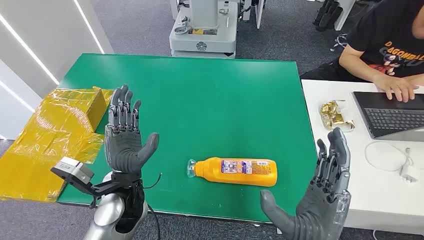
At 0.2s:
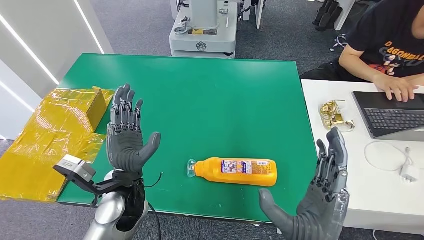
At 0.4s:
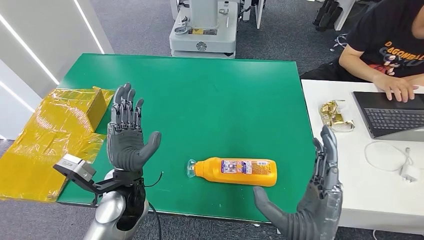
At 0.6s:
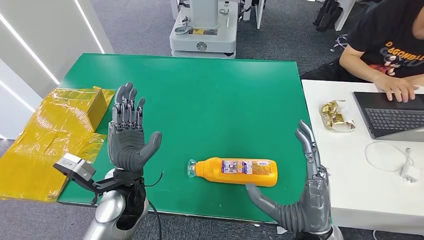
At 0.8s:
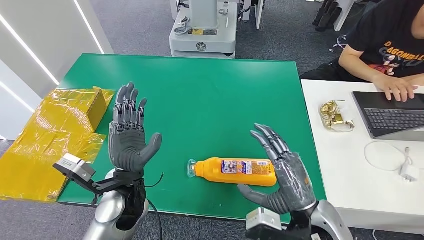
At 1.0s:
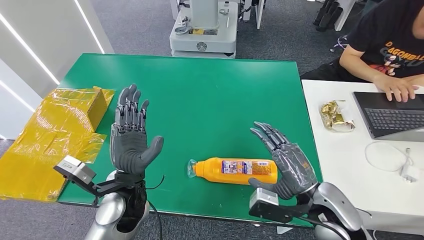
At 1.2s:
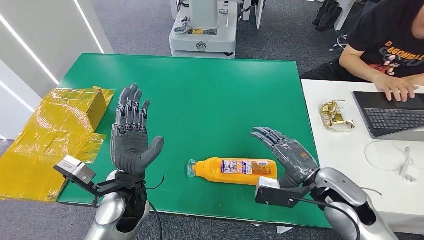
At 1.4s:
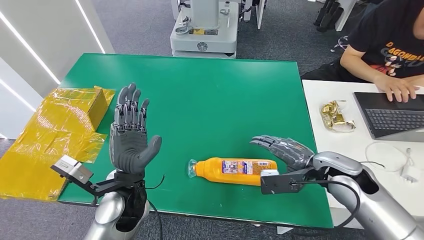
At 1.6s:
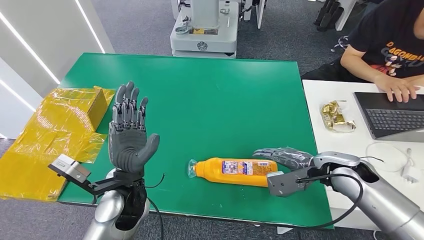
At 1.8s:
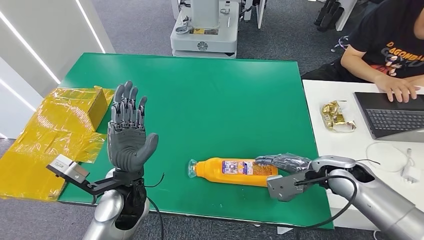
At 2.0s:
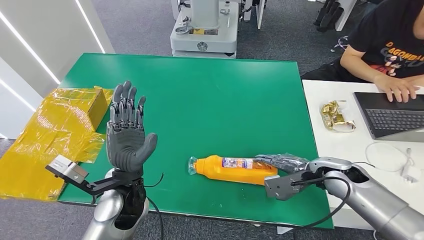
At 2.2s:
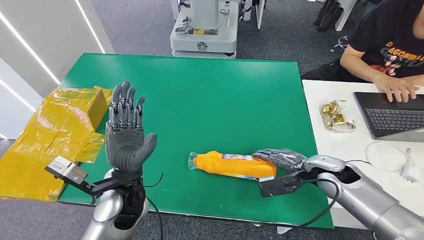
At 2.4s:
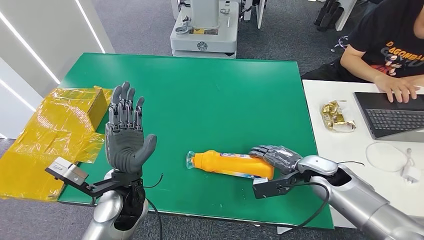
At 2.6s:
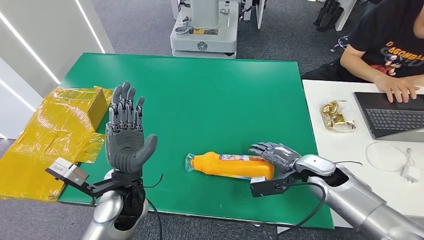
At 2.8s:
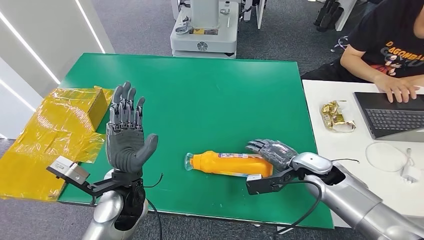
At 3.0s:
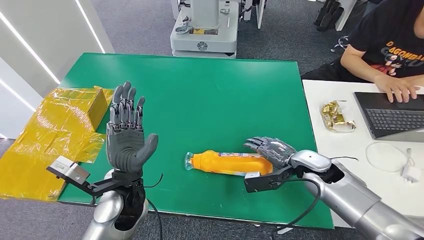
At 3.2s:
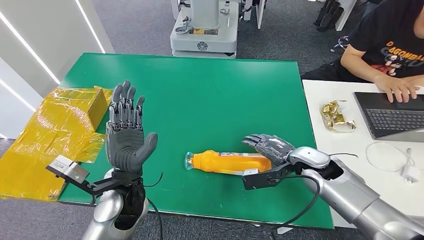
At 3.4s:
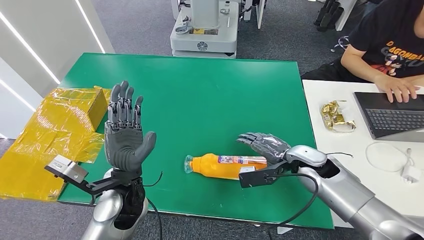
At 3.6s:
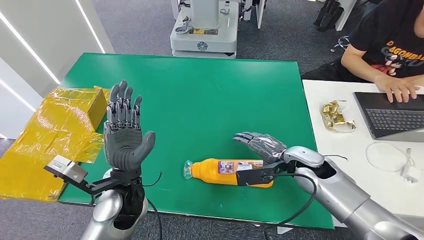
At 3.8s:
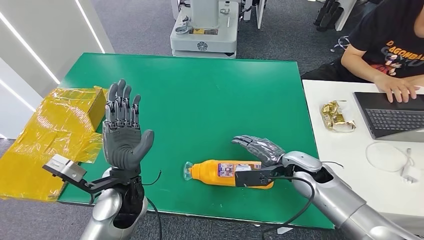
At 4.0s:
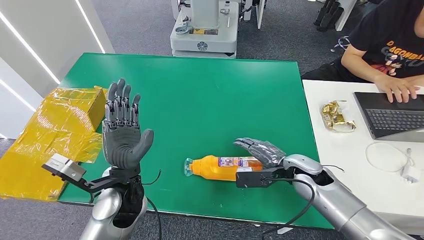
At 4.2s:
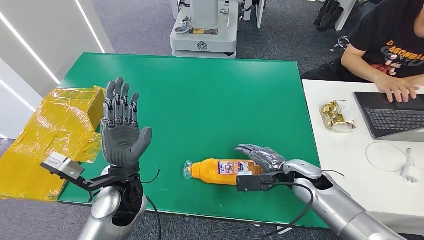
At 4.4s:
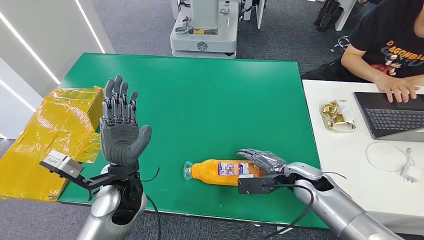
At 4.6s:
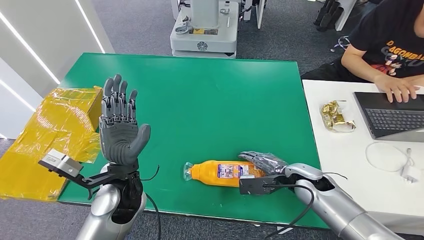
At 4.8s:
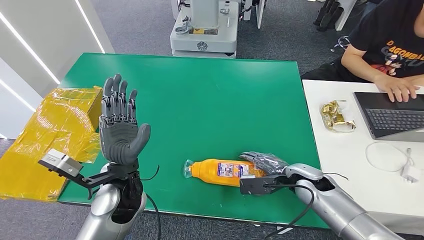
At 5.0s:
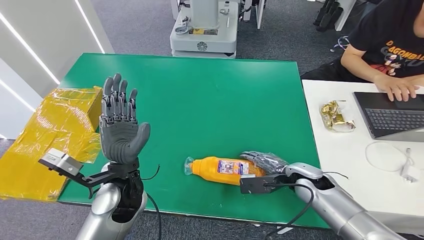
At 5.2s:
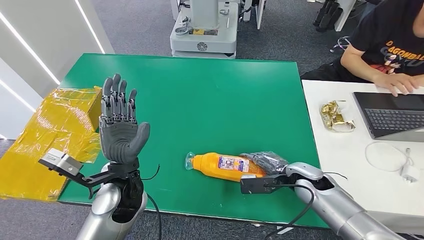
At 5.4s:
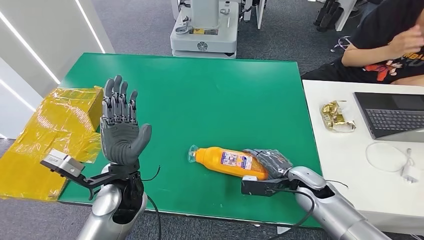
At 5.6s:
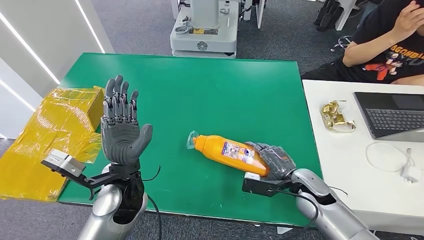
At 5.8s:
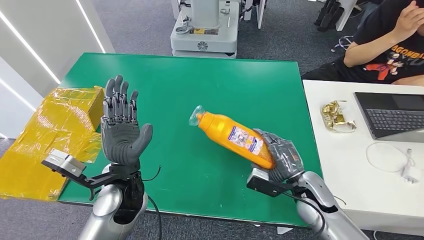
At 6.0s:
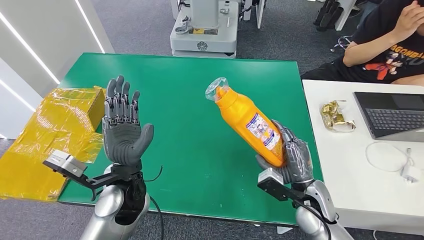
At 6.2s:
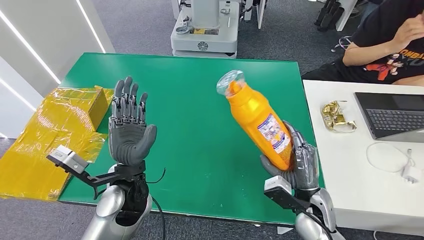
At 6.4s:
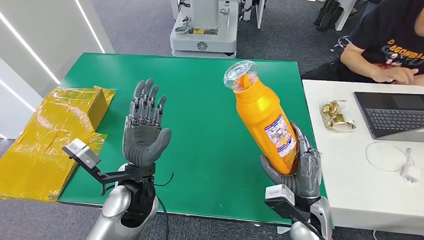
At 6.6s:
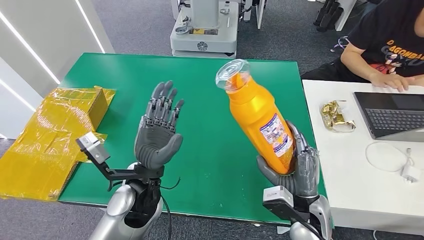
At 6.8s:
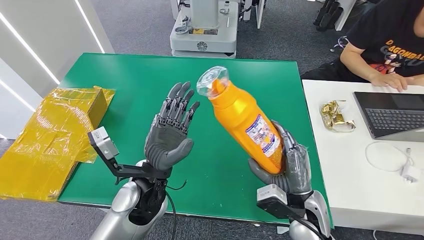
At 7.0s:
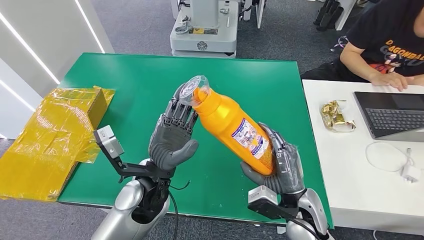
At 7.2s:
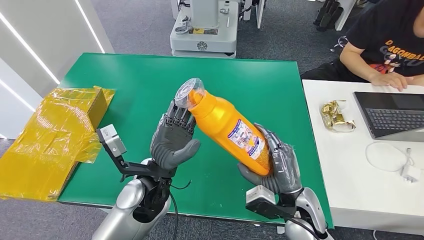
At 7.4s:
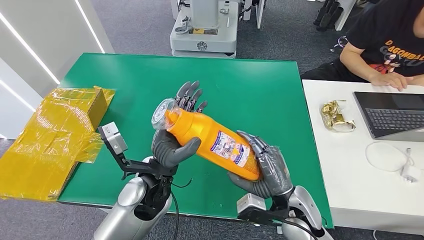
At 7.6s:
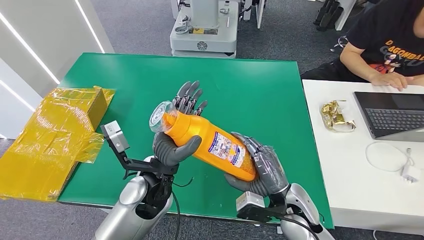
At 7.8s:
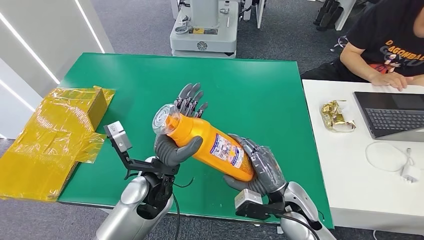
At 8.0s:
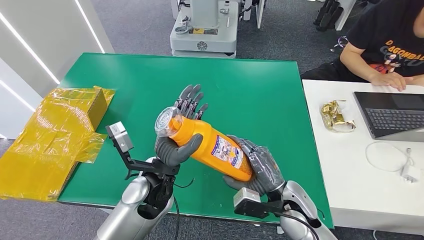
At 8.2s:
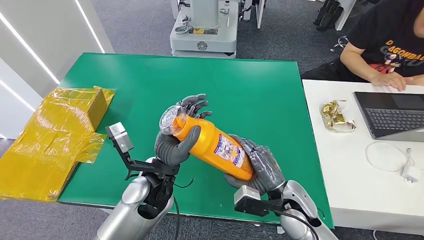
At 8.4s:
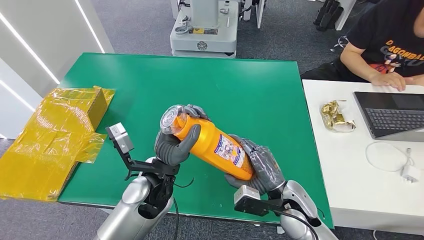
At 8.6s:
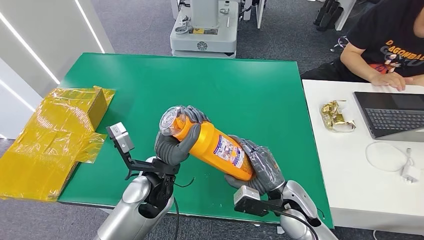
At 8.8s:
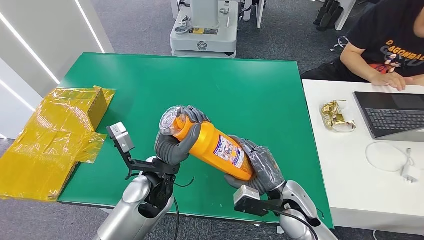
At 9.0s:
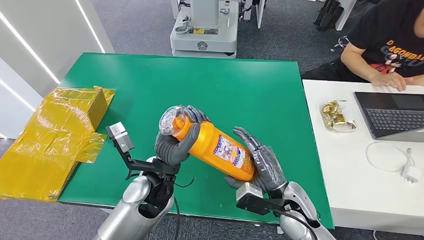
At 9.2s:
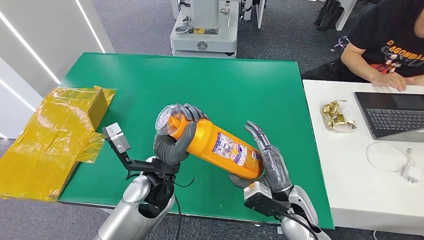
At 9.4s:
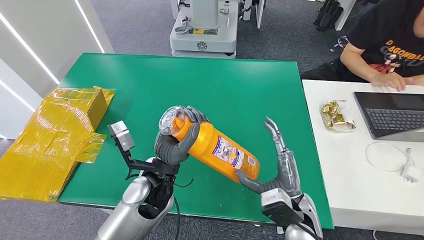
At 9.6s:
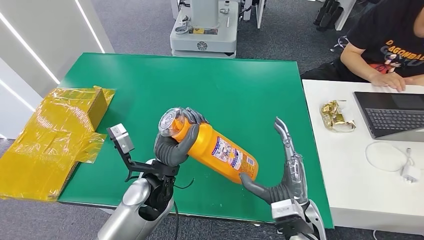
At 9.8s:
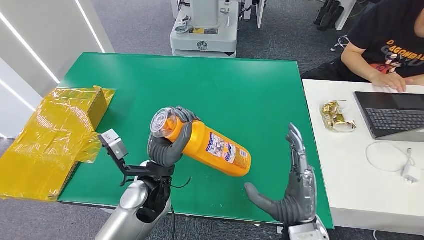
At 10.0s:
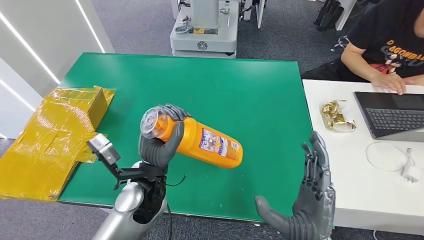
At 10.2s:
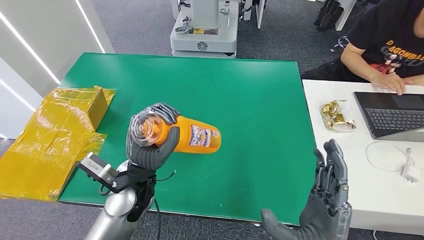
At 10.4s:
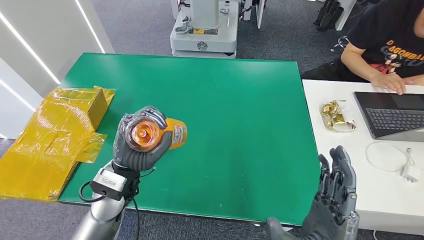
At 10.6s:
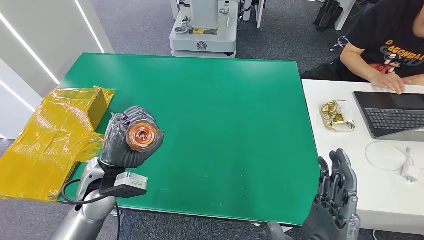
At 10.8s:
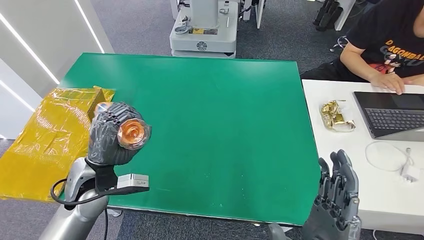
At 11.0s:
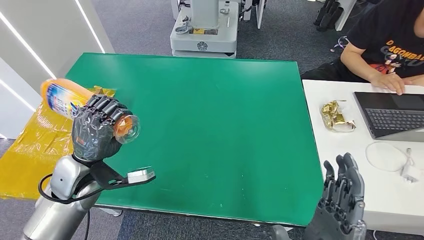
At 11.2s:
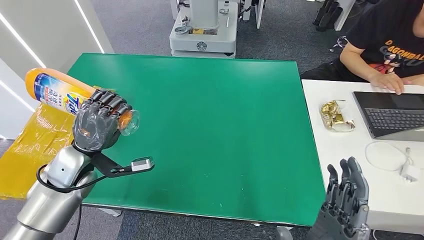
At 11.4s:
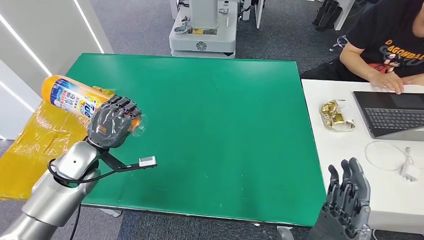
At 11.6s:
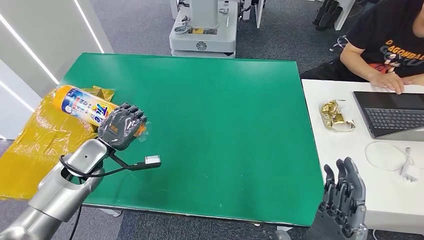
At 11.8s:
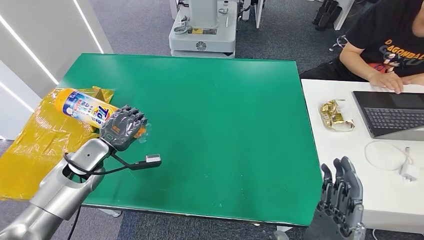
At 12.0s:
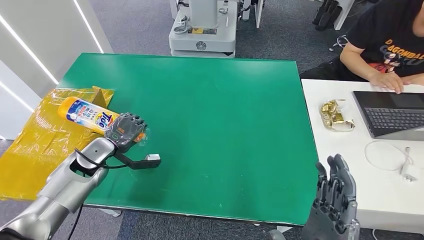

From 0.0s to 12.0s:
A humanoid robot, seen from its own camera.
Step, from 0.0s to 6.4s: Pick up the bottle from the table.
From 1.6s to 3.0s: The right hand ends up approximately 5 cm from where it was.
From 3.0s to 4.4s: The right hand changes place by some 5 cm.
From 4.4s to 6.0s: The right hand travels backward by some 5 cm.
From 7.6s to 9.0s: The hands make only small movements.
From 9.0s to 10.4s: The right hand is displaced backward and upward by some 15 cm. The left hand travels to the left by approximately 10 cm.
From 10.4s to 12.0s: The left hand travels to the left, forward and downward by approximately 20 cm.

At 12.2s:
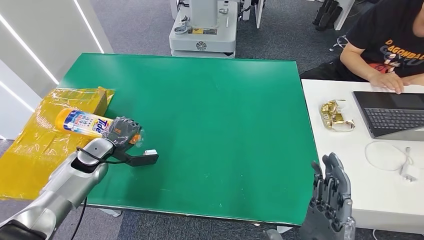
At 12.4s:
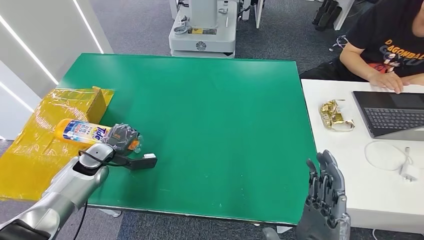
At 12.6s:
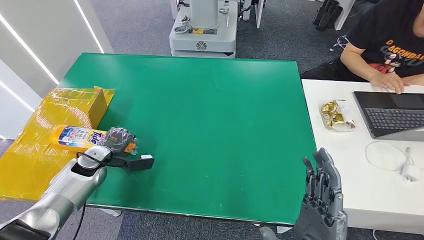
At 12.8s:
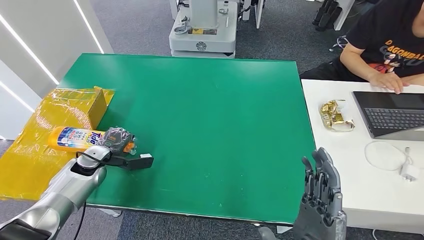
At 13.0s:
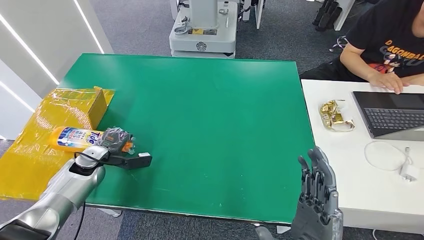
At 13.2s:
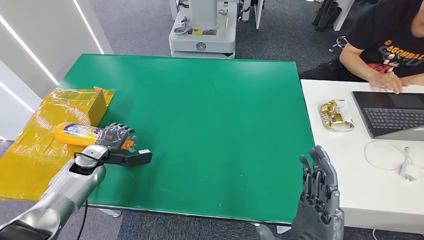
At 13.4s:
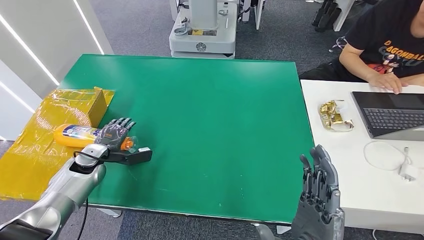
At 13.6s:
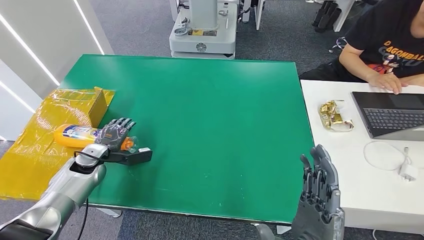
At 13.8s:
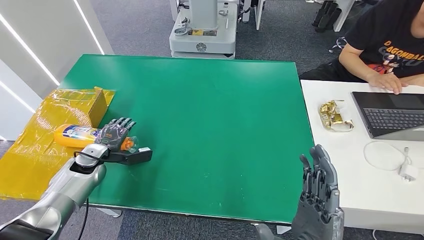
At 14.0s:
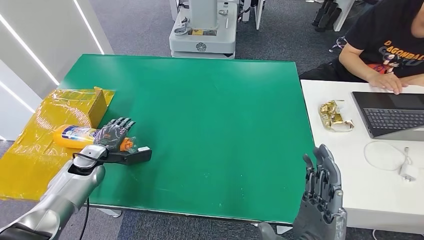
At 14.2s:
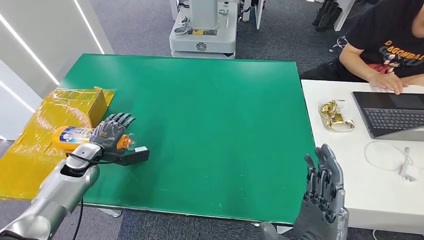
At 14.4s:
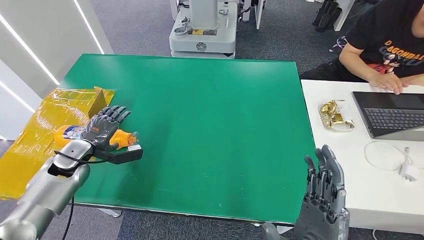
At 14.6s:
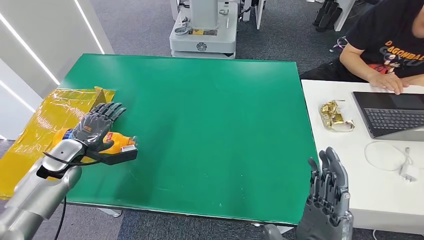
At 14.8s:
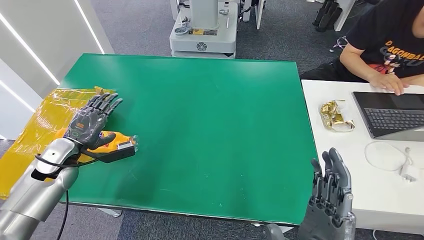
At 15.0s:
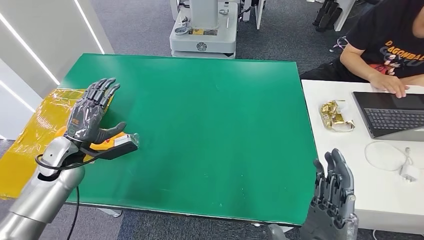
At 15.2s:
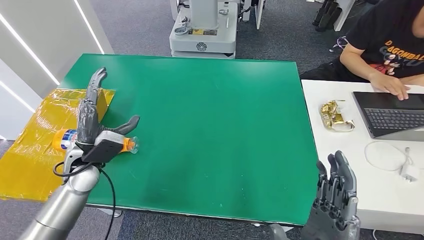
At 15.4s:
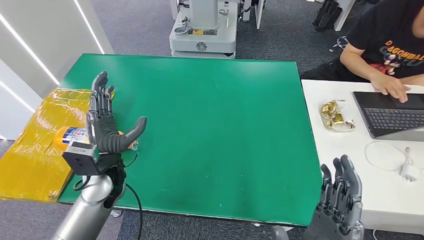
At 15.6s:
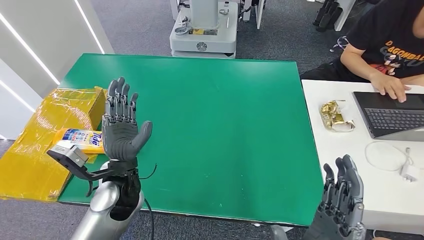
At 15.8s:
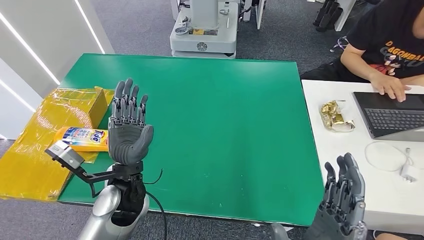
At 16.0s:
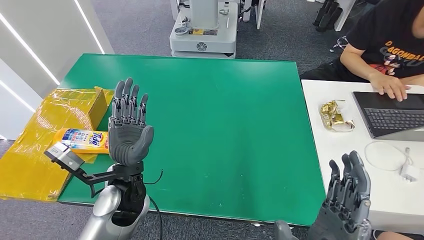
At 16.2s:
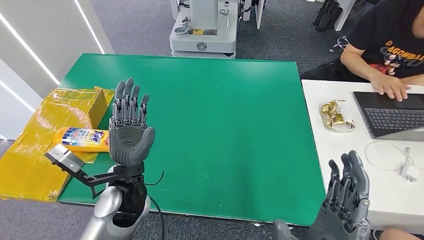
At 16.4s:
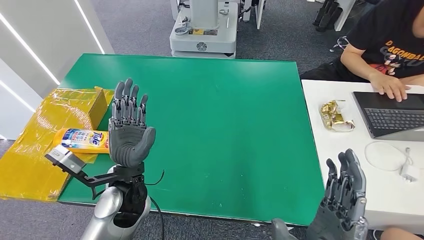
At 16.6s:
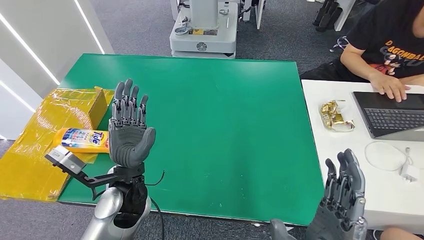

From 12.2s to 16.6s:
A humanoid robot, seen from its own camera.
Step, from 12.2s to 16.6s: Turn the bottle to the front side.
From 12.2s to 13.6s: There are only small adjustments of the hands.
From 13.6s to 15.2s: The left hand shifts some 10 cm upward and to the right.
From 15.2s to 16.6s: The left hand travels to the right and backward by approximately 15 cm.
